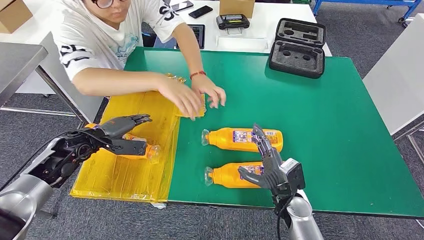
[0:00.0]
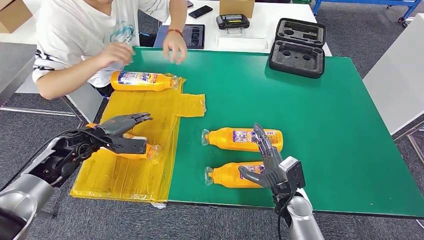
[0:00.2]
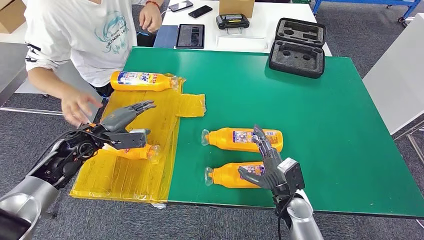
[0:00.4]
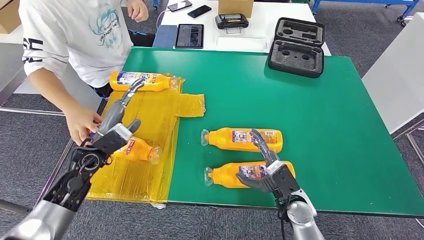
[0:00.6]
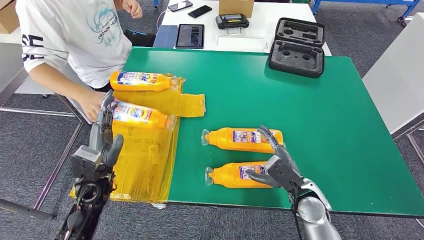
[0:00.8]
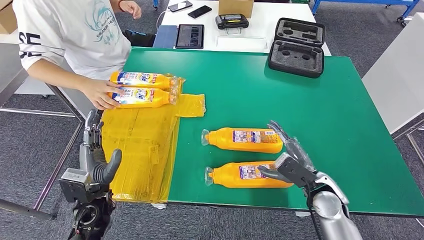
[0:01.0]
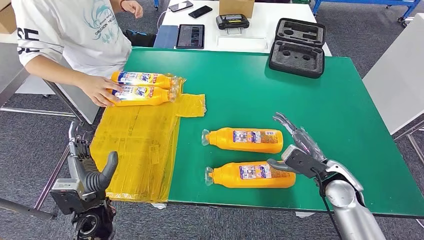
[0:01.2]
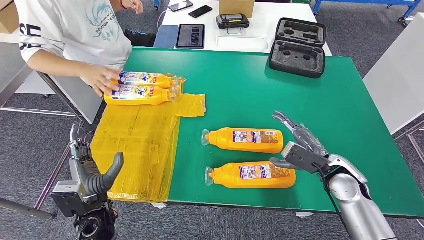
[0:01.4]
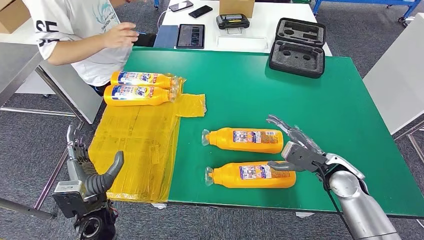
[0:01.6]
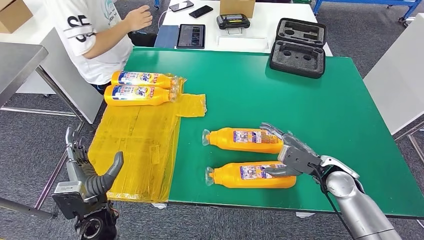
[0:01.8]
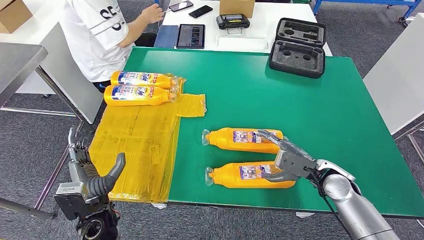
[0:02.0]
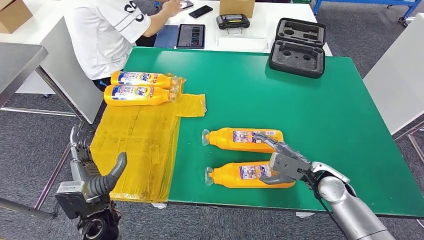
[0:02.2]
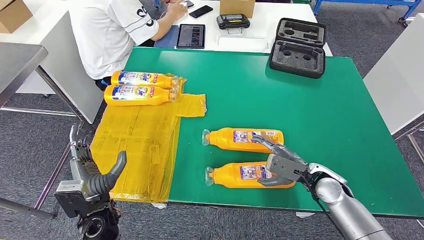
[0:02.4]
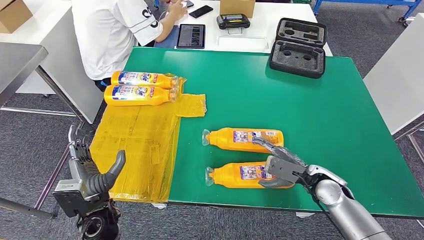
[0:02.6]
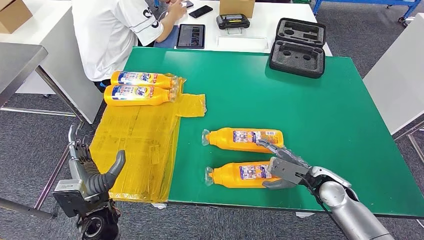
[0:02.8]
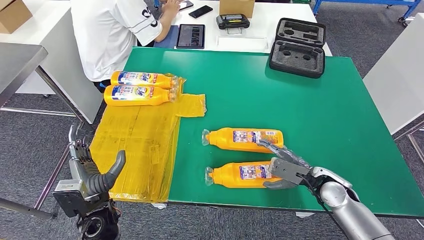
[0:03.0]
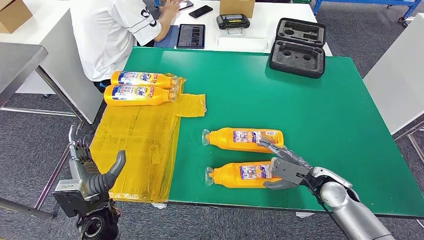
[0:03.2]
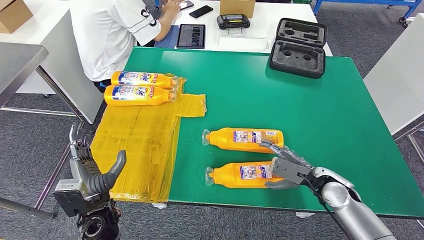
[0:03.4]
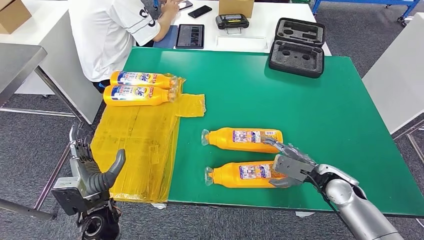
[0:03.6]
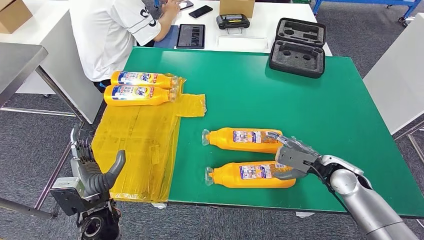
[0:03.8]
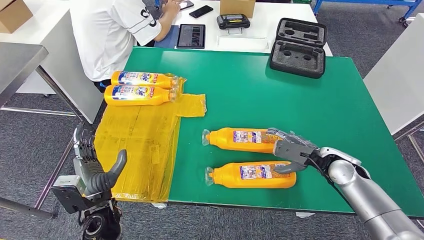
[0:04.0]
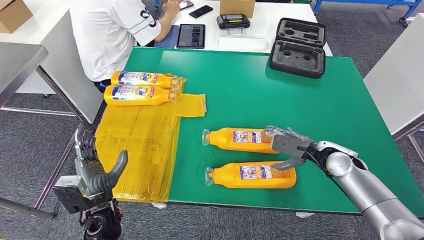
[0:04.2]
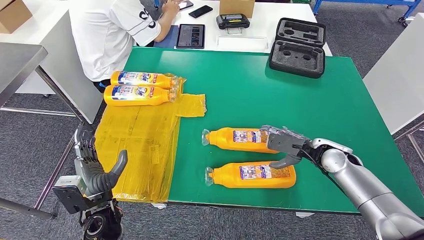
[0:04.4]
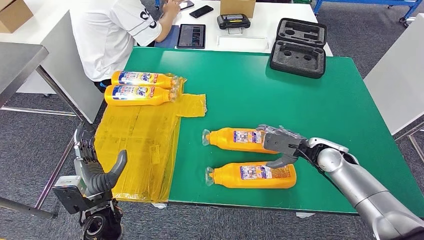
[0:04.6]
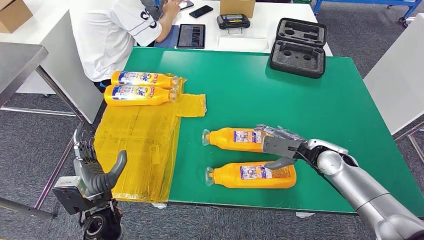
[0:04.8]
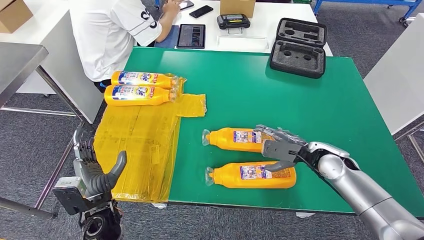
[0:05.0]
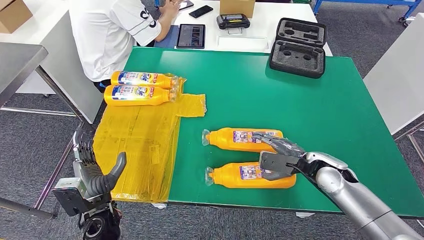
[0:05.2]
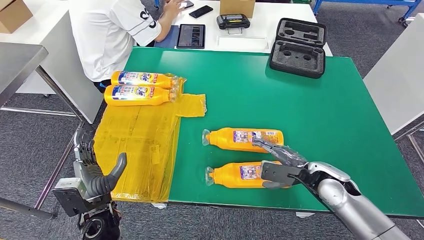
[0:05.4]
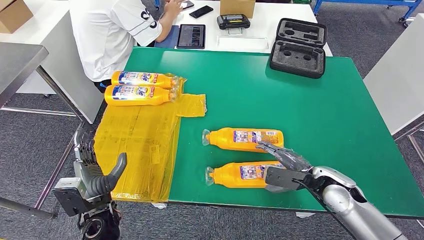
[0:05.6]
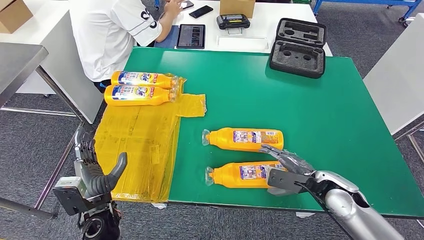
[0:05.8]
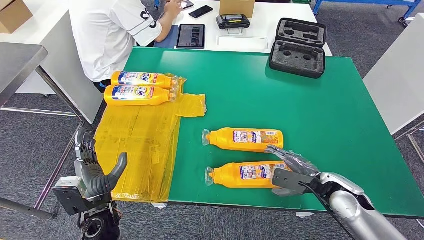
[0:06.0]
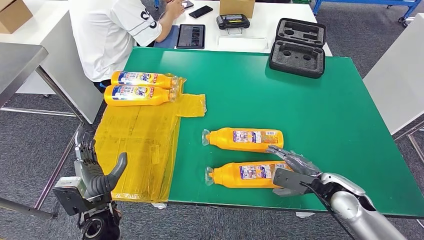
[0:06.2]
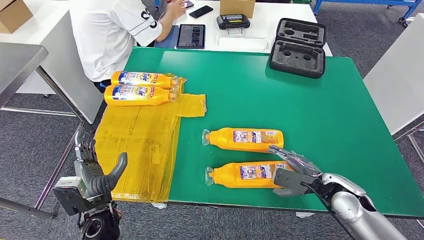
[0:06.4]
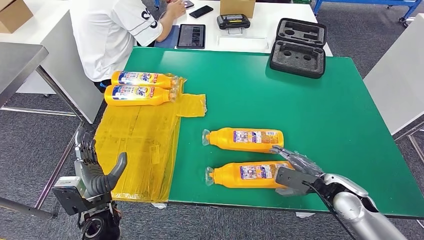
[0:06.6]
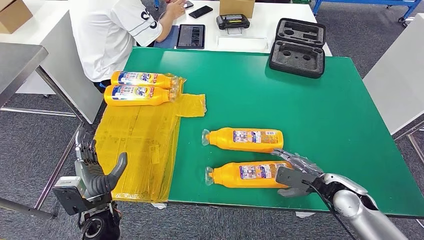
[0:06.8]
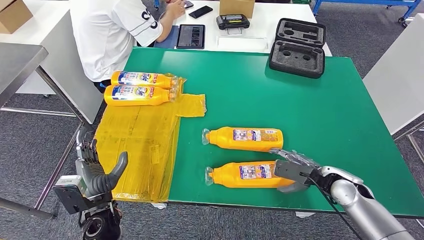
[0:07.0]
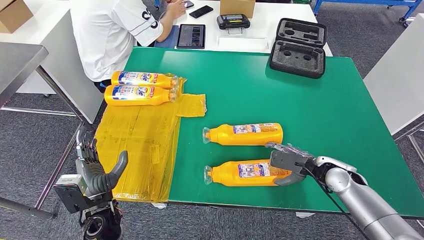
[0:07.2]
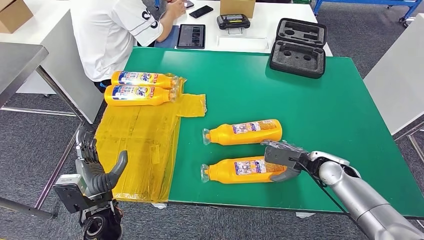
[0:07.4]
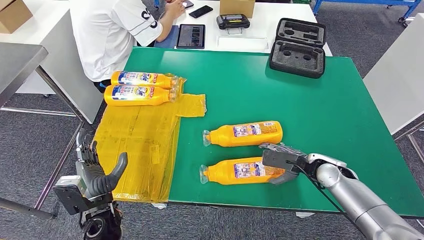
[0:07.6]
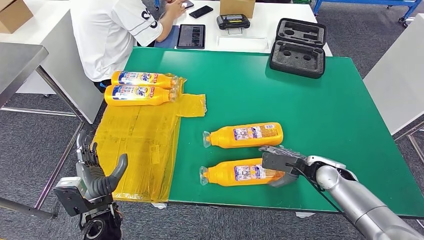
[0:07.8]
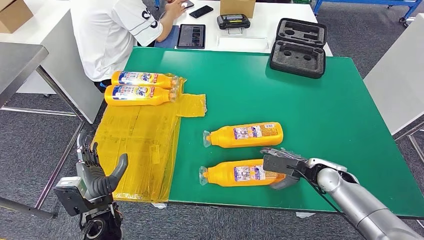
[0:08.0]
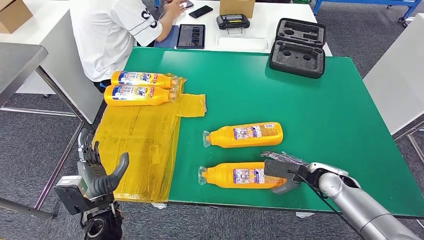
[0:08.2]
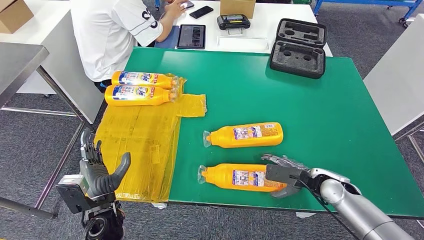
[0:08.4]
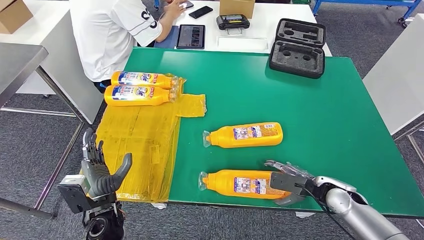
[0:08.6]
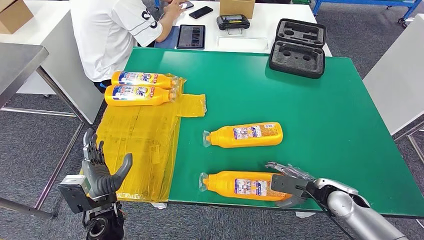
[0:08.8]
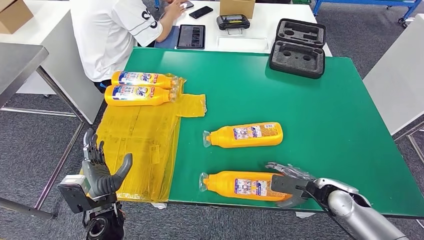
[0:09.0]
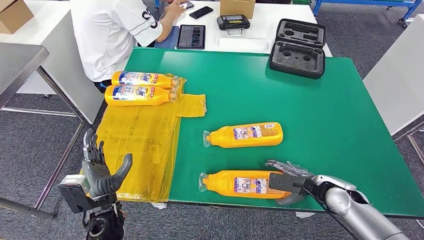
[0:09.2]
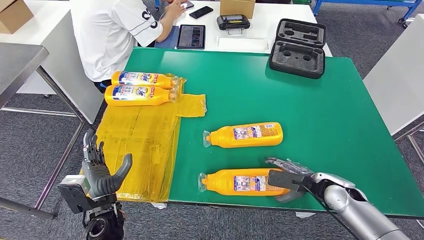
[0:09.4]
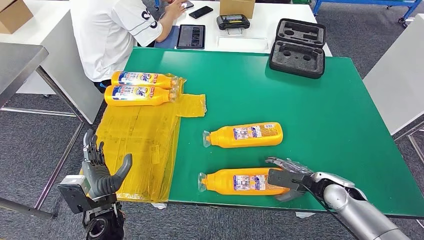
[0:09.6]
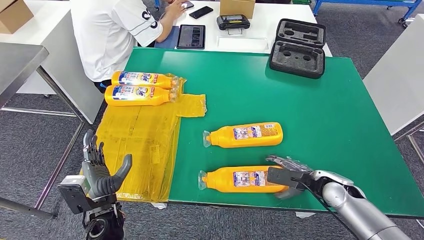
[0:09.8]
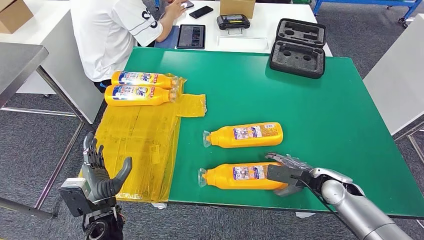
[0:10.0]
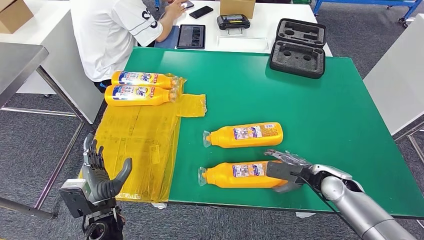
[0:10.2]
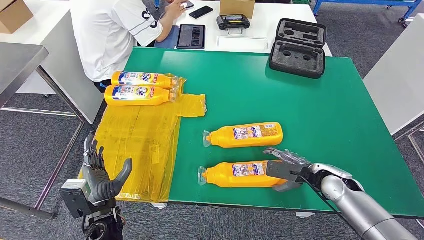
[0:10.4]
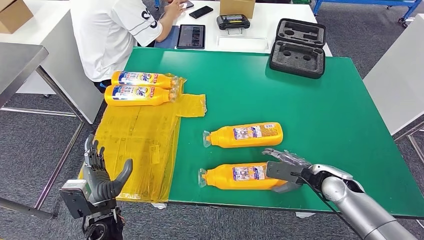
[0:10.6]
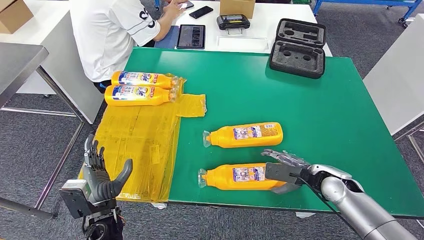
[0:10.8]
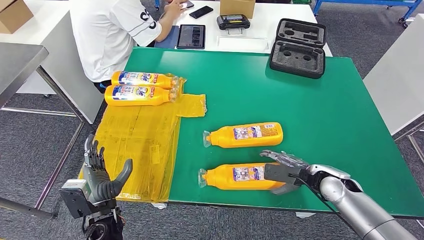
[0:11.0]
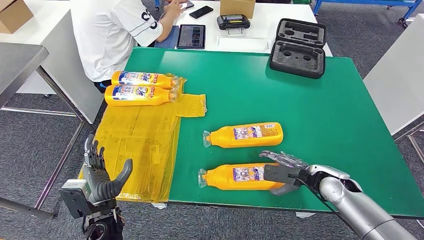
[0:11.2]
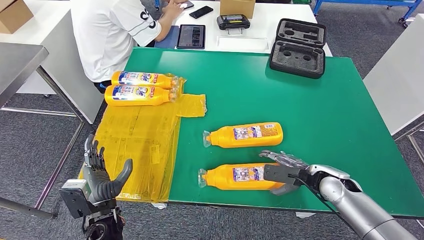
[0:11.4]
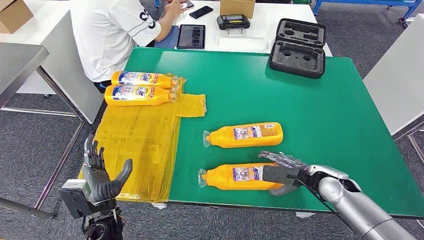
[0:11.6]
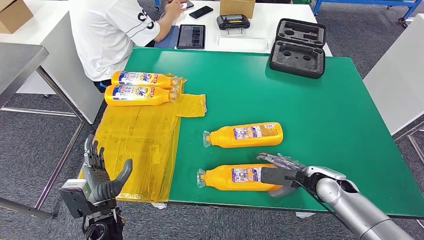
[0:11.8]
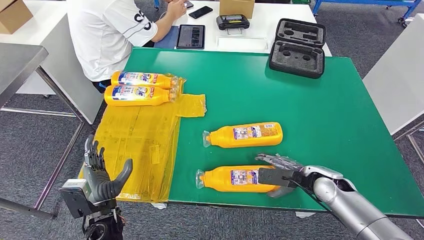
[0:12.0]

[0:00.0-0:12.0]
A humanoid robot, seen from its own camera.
0:01.6 to 0:03.0: There are only small adjustments of the hands.
0:03.0 to 0:04.4: The right hand heads forward, covering some 5 cm.
0:04.4 to 0:06.0: The right hand goes roughly 10 cm backward.
0:06.0 to 0:07.6: The right hand heads forward, covering roughly 5 cm.
0:07.6 to 0:09.0: The right hand goes roughly 5 cm backward.
0:09.0 to 0:12.0: The hands make only small movements.

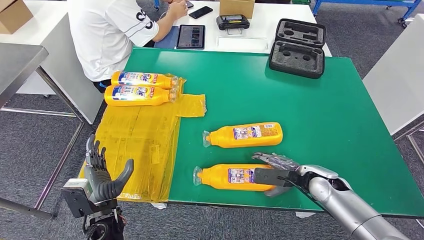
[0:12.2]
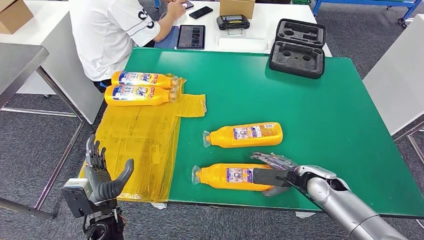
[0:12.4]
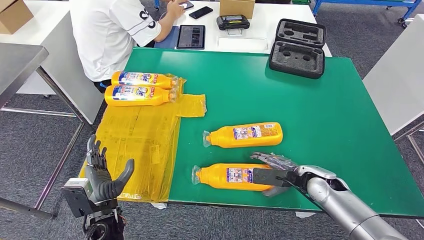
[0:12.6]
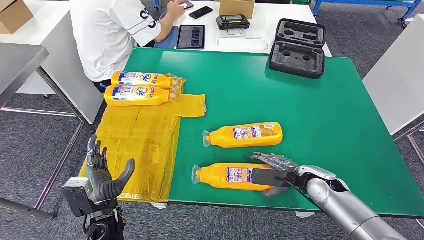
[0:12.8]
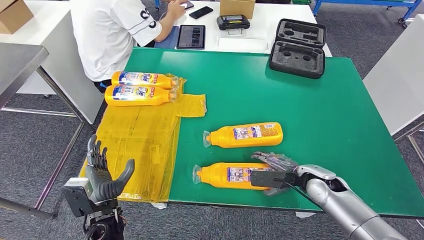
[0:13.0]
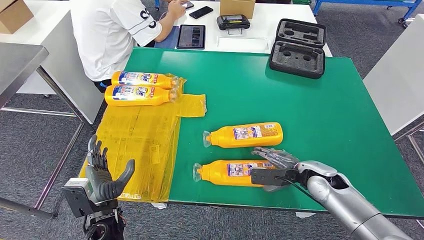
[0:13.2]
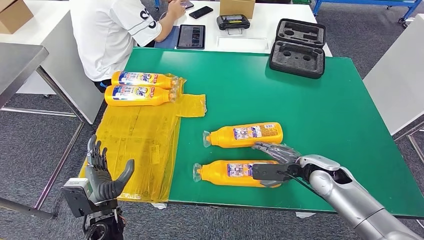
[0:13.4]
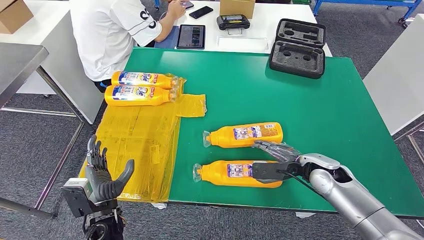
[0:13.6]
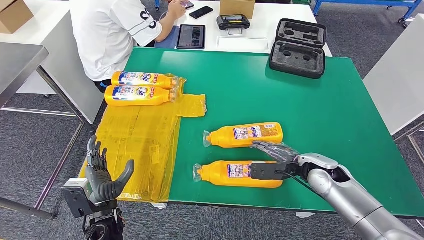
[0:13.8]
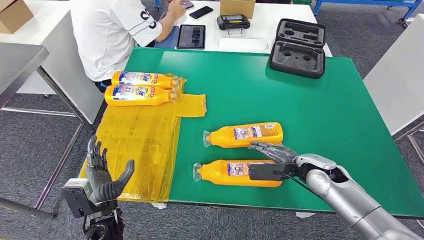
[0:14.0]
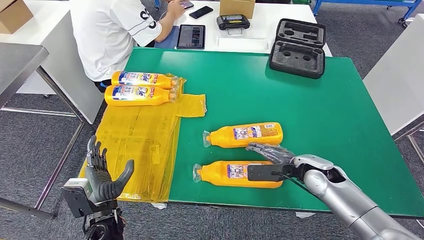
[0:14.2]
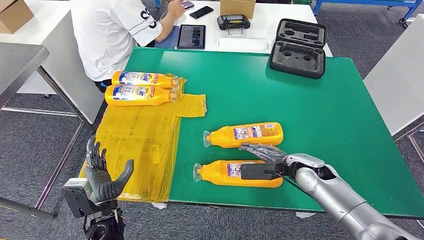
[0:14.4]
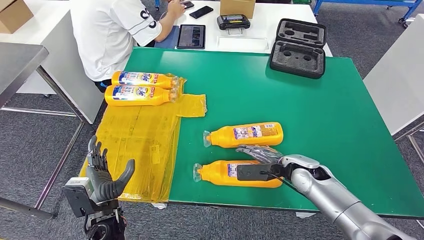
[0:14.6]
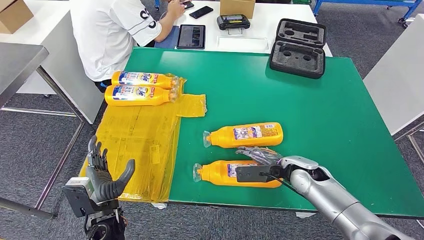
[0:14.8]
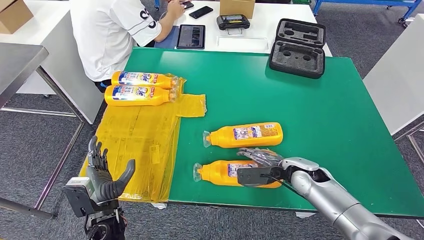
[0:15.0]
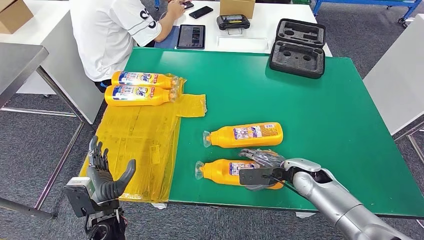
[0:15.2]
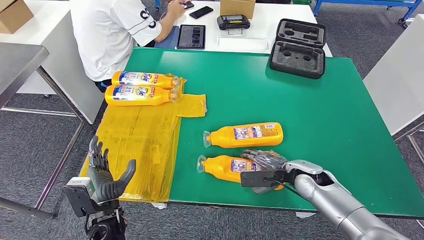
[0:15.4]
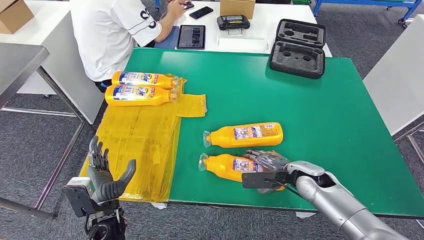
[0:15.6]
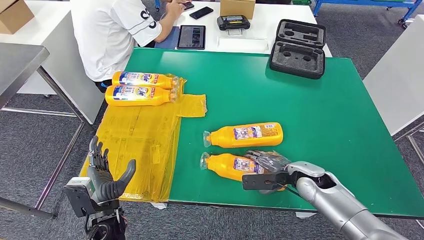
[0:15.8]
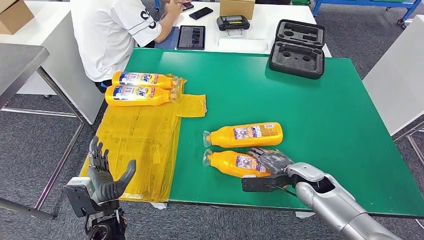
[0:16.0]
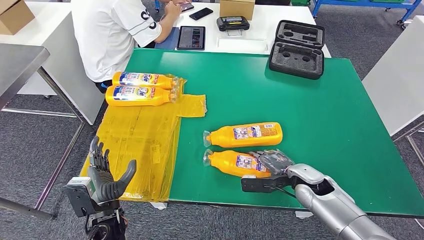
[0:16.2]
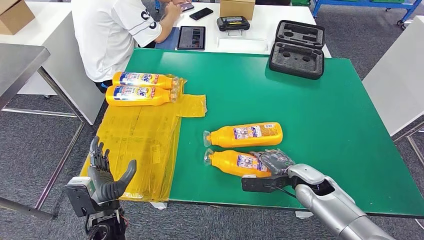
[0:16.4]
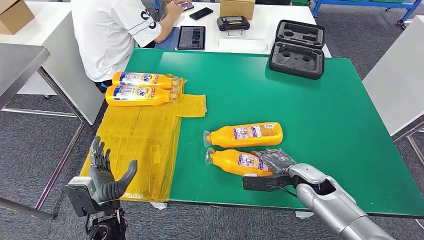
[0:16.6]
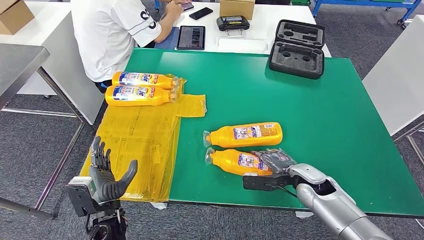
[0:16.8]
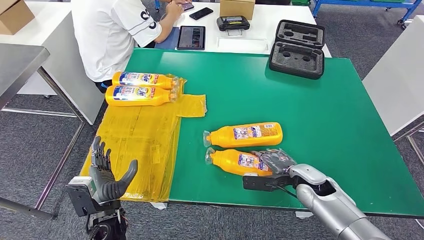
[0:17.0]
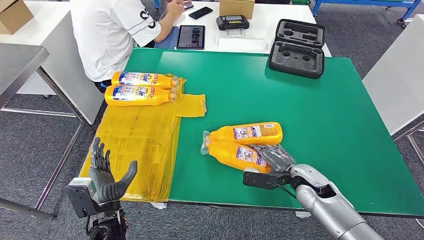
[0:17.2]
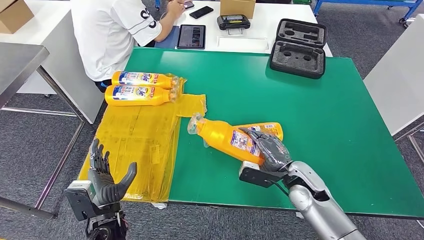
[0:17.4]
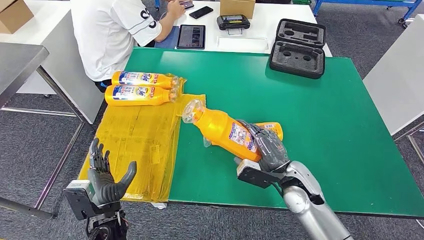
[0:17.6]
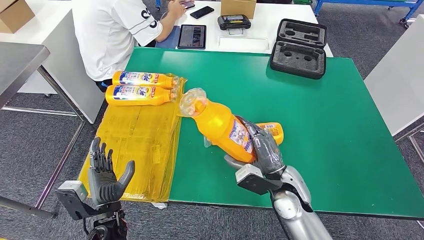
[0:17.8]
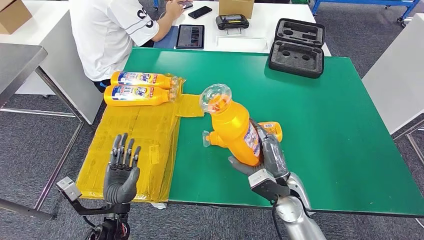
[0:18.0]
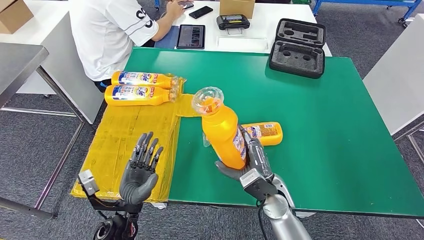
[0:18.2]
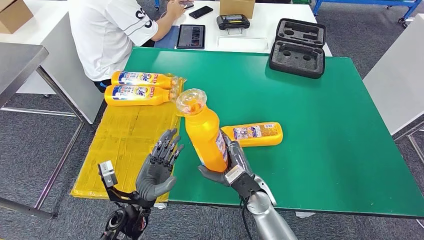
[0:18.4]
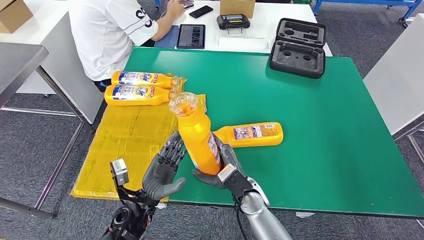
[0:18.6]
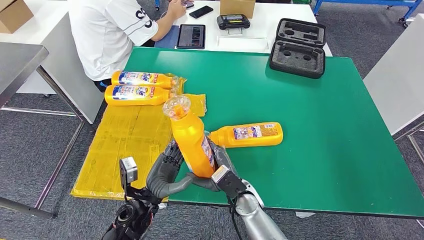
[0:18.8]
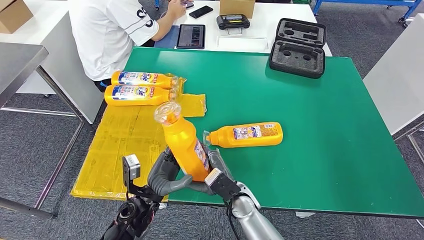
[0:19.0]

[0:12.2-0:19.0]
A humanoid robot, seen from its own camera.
Step, 0:12.2 to 0:18.6: Pick up the bottle from the table.
0:12.2 to 0:15.0: The hands move only a little.
0:15.0 to 0:16.2: The hands make only small movements.
0:16.2 to 0:17.6: The right hand goes some 5 cm to the left.
0:17.6 to 0:19.0: The left hand travels to the right by some 5 cm. Meanwhile the right hand goes roughly 15 cm to the left and downward.
